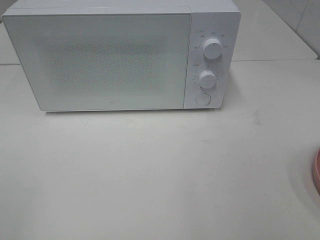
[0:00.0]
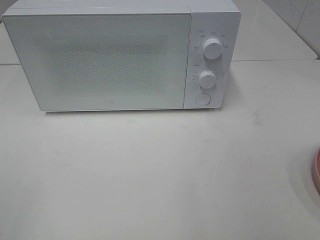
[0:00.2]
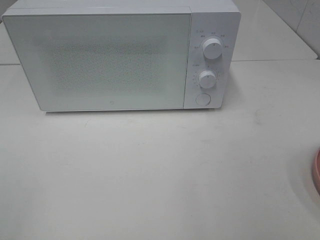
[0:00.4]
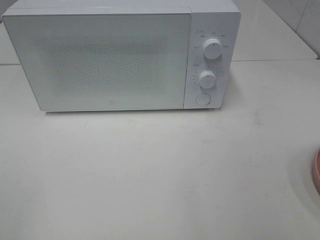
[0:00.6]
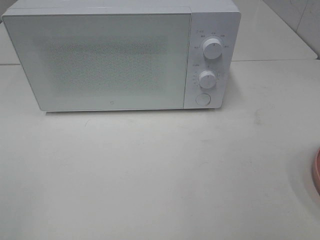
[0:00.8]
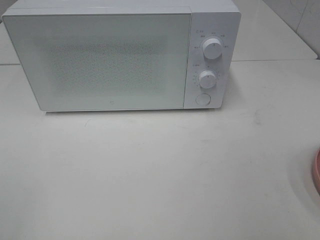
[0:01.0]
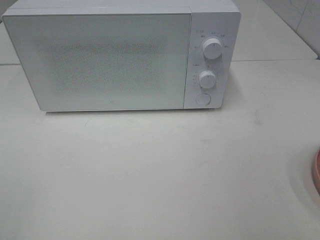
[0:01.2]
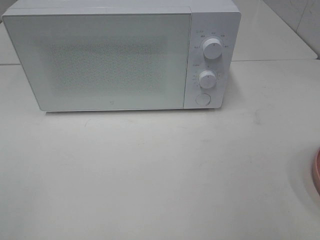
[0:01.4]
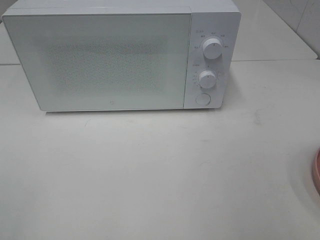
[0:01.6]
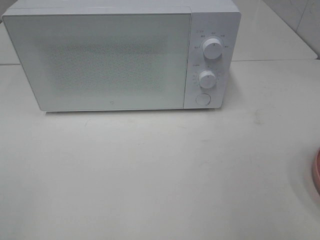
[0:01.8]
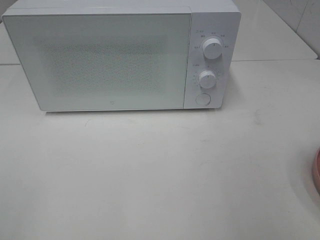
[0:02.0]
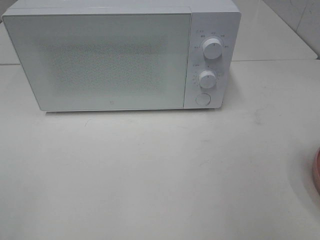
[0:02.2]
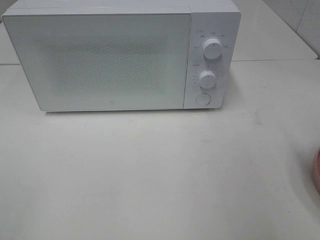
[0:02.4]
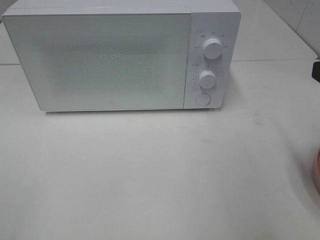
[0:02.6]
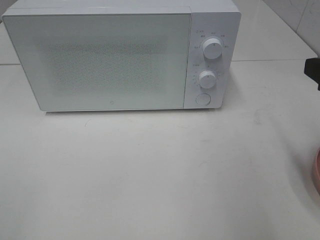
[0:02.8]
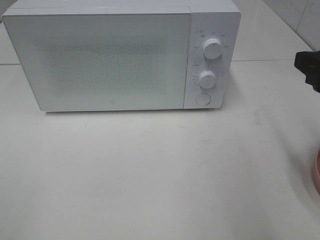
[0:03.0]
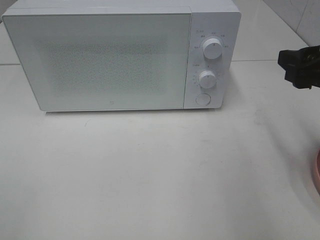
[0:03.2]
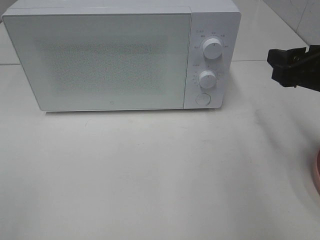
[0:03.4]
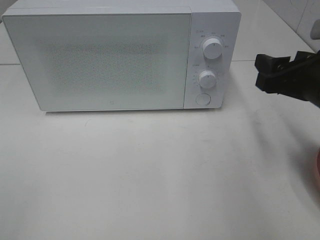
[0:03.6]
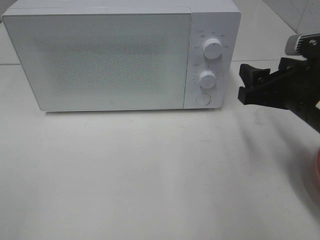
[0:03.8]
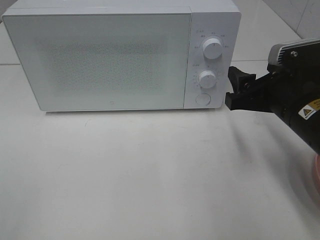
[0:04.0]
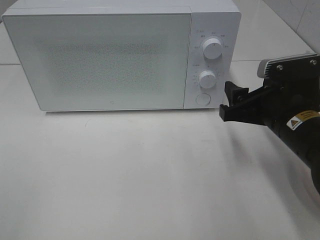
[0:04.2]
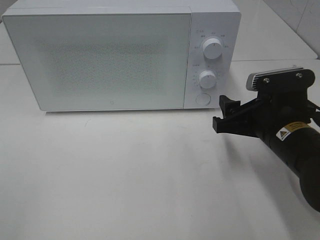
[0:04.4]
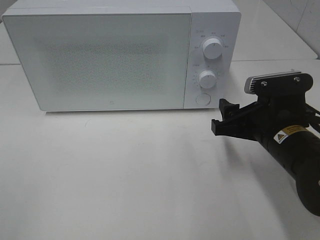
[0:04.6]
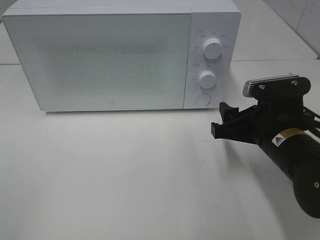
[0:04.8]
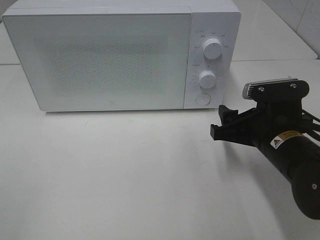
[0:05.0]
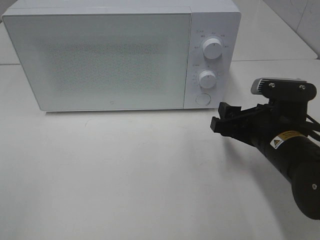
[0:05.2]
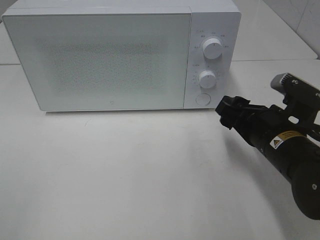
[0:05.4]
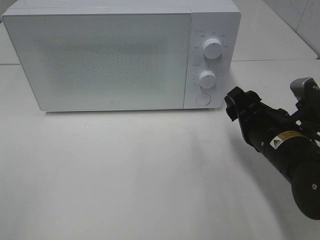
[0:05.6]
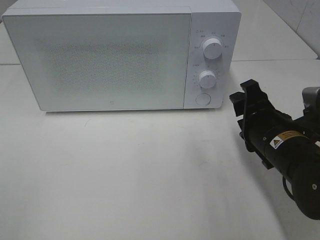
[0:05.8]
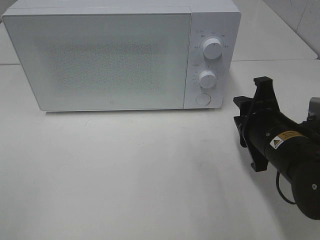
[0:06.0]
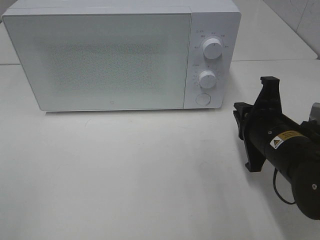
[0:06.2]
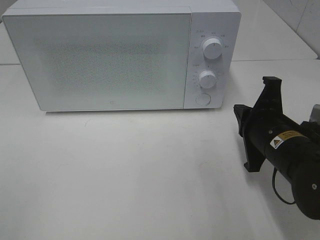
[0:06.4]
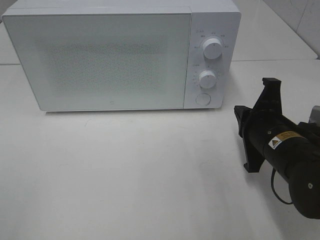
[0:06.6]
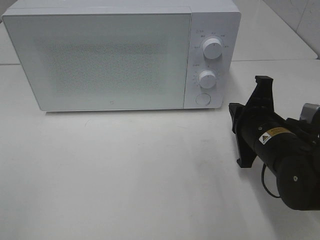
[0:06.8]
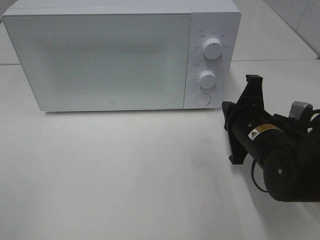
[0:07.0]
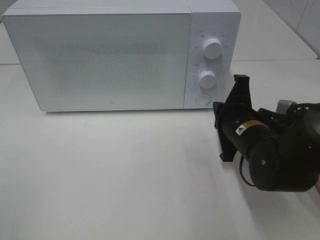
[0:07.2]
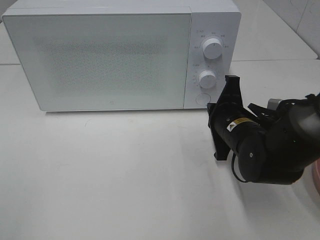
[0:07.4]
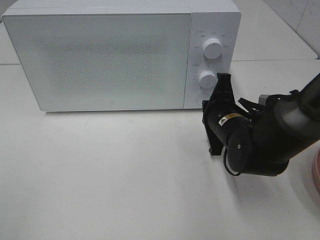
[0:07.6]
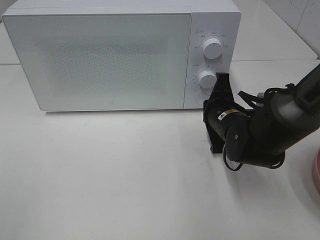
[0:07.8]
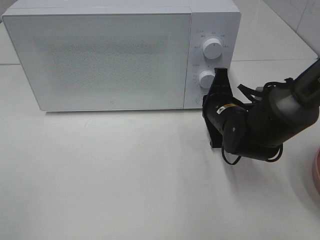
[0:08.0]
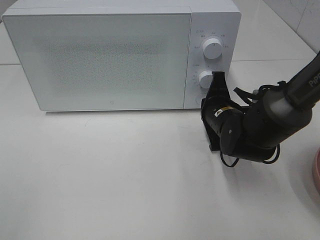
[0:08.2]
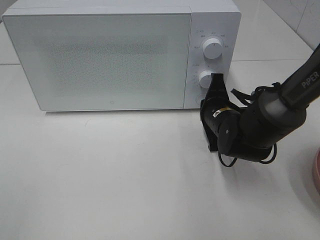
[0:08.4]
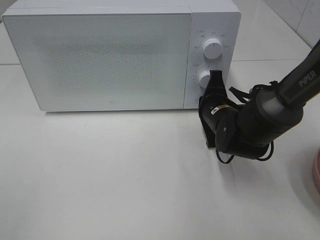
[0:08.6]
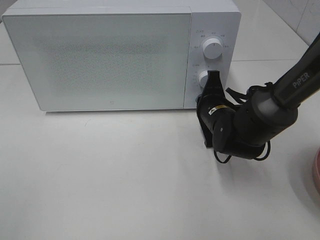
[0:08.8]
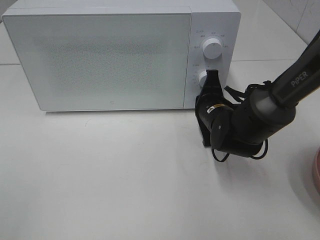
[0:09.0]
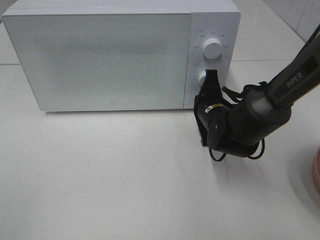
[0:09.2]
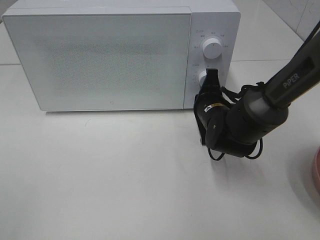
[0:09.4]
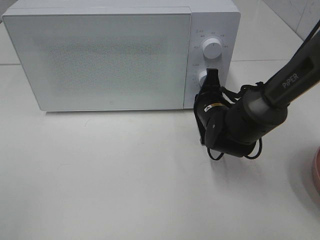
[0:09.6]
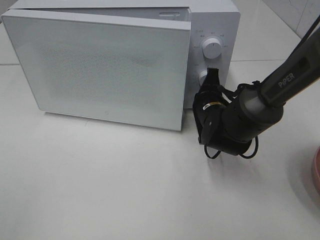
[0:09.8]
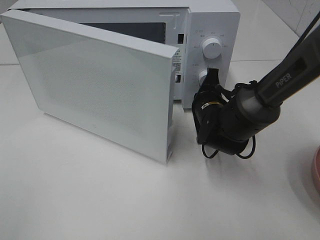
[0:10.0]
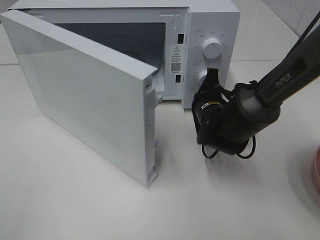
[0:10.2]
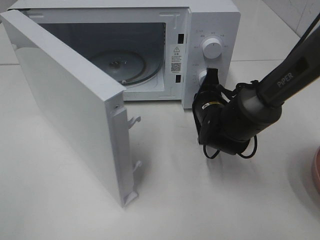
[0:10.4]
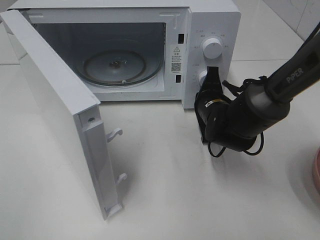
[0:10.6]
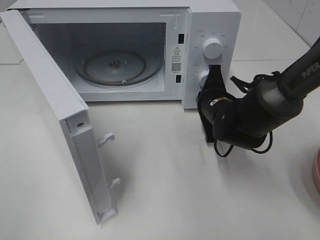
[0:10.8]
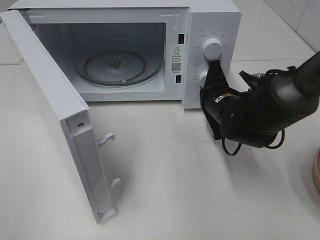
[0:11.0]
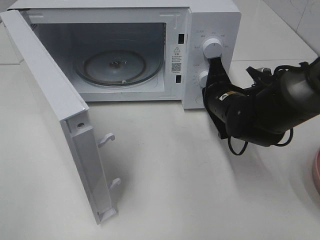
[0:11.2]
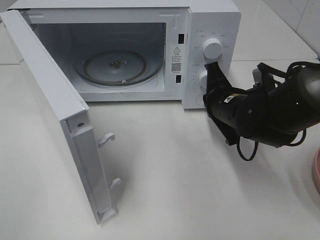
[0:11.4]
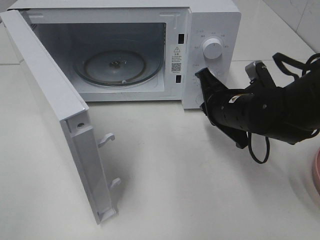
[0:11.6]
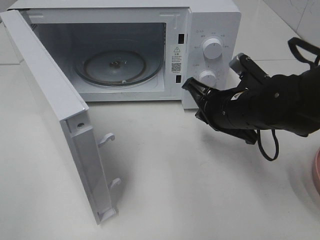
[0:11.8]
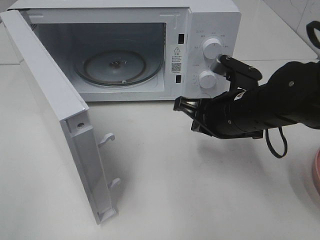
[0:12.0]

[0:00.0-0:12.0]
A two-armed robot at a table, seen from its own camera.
Task of the whole recording: Heat the burger.
Step, 0:00.0 to 0:11.4: Right hand: press the switch.
0:01.6 to 0:03.0: The right gripper moves forward, roughly 10 cm.
0:03.0 to 0:04.4: The right gripper shifts about 15 cm downward and to the left.
0:04.4 to 0:06.0: The right gripper closes.
0:06.0 to 0:07.6: The right gripper moves forward, roughly 5 cm, and closes its fingers.
0:07.6 to 0:09.0: The grippers make only small movements.
0:10.4 to 0:12.0: The right gripper heads backward and upward, covering about 10 cm.

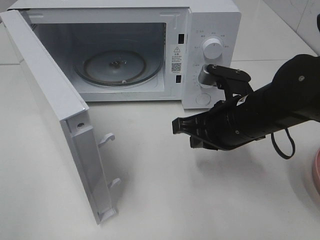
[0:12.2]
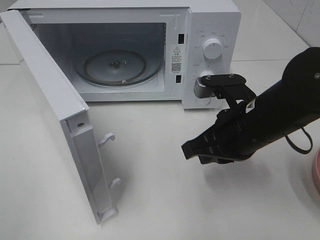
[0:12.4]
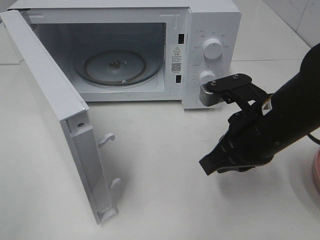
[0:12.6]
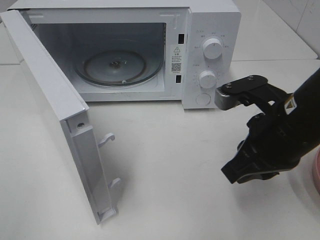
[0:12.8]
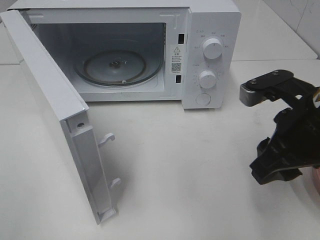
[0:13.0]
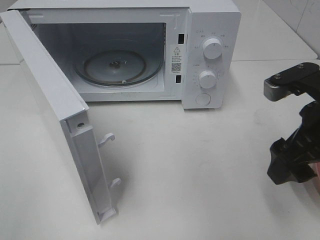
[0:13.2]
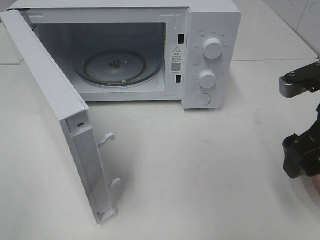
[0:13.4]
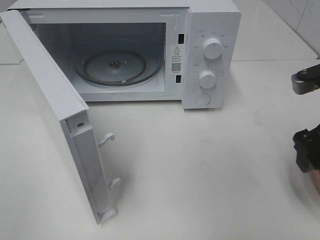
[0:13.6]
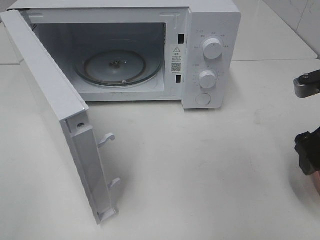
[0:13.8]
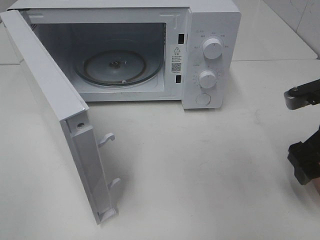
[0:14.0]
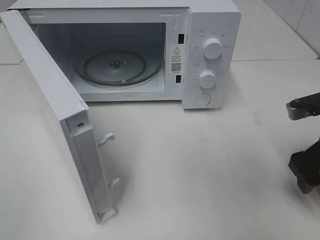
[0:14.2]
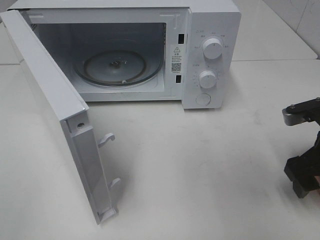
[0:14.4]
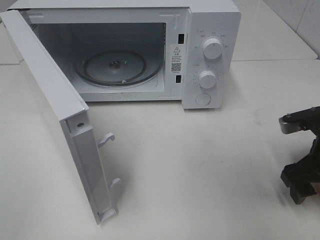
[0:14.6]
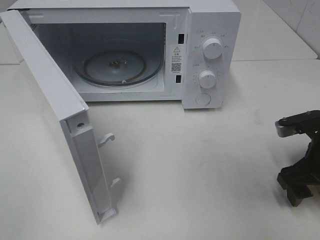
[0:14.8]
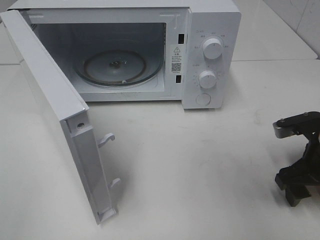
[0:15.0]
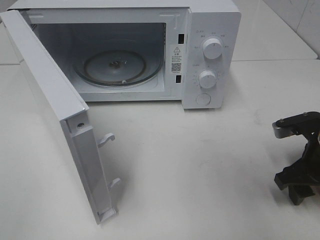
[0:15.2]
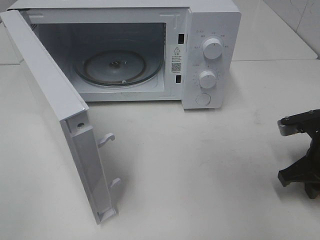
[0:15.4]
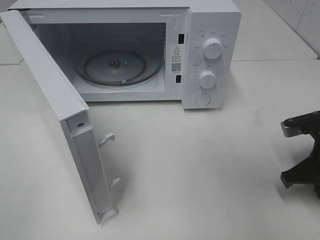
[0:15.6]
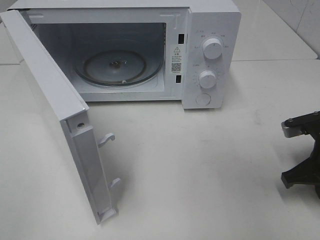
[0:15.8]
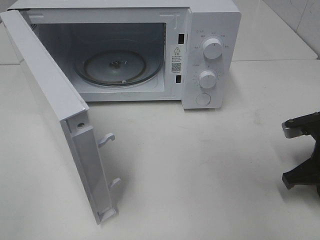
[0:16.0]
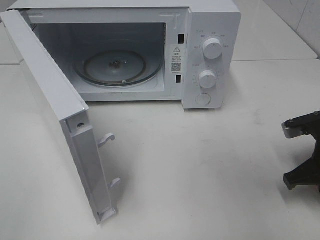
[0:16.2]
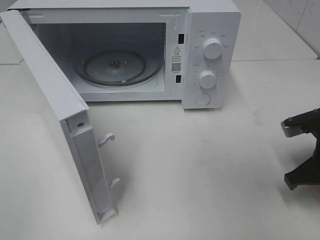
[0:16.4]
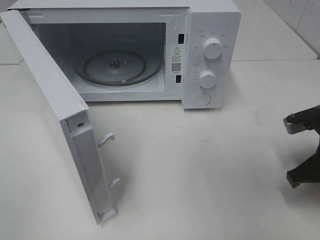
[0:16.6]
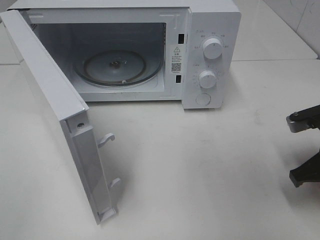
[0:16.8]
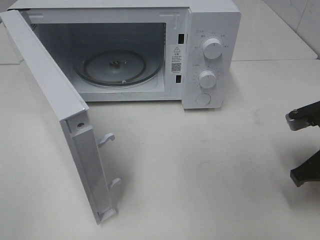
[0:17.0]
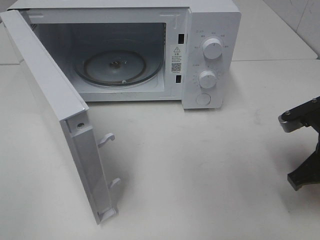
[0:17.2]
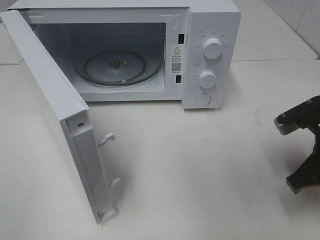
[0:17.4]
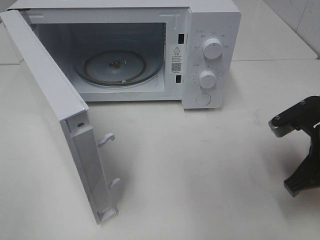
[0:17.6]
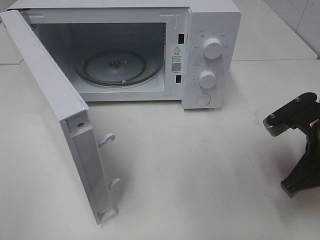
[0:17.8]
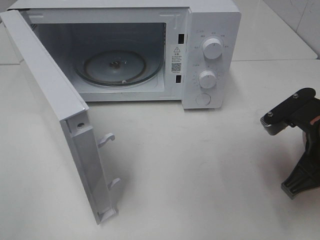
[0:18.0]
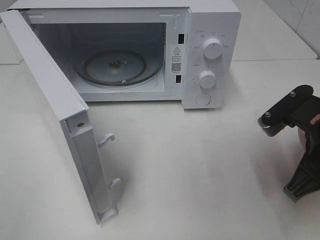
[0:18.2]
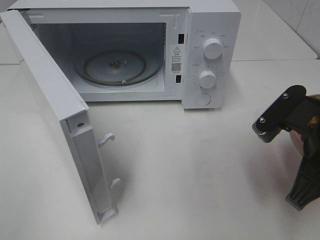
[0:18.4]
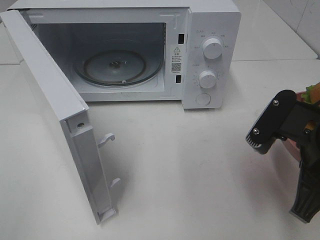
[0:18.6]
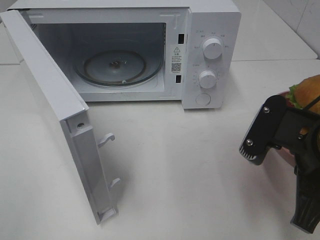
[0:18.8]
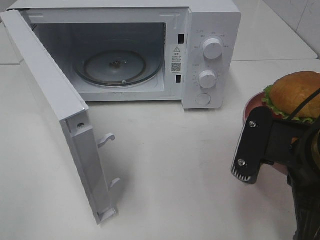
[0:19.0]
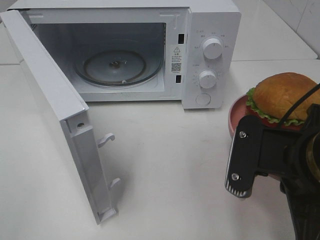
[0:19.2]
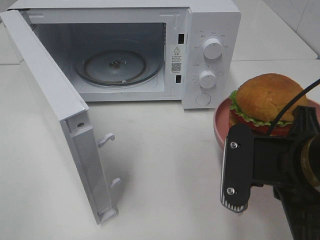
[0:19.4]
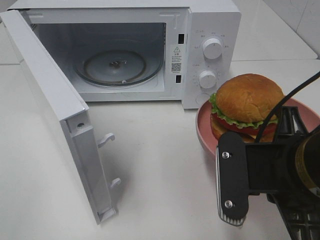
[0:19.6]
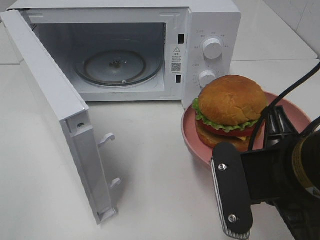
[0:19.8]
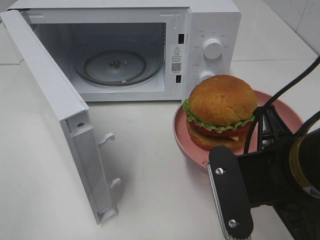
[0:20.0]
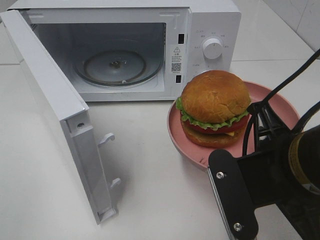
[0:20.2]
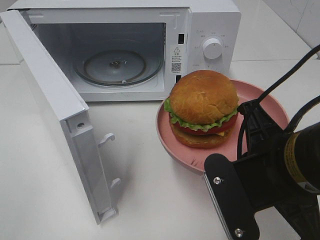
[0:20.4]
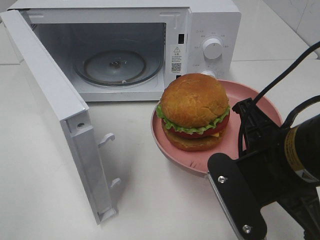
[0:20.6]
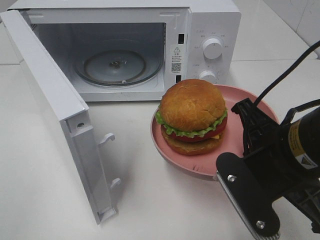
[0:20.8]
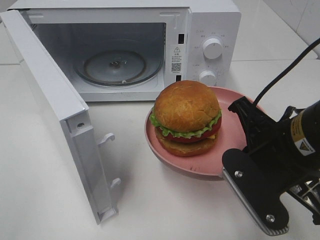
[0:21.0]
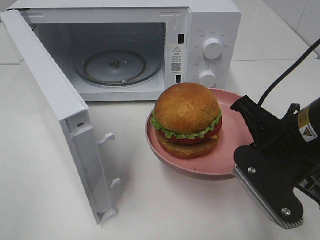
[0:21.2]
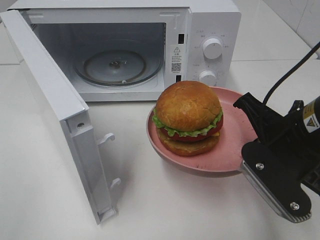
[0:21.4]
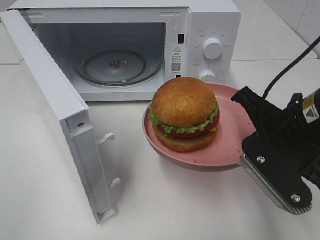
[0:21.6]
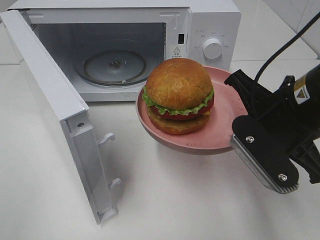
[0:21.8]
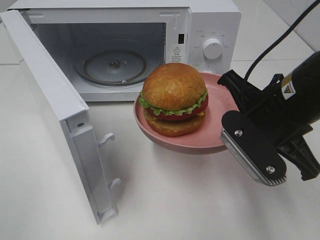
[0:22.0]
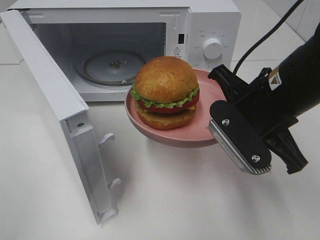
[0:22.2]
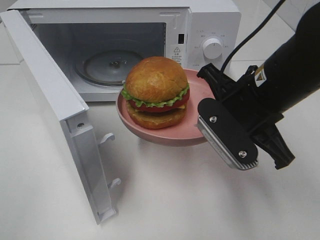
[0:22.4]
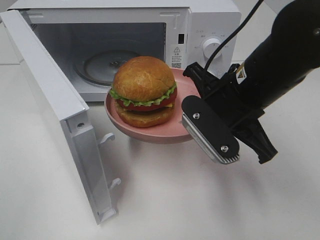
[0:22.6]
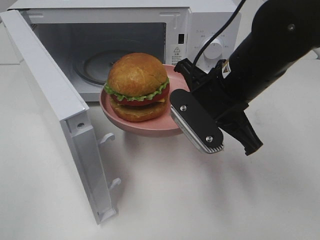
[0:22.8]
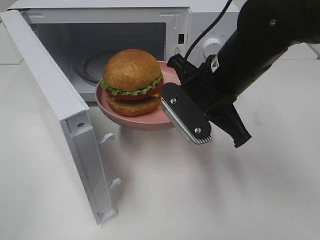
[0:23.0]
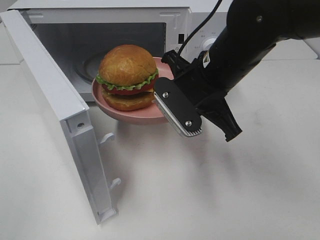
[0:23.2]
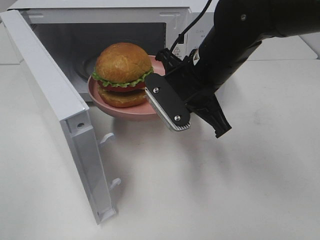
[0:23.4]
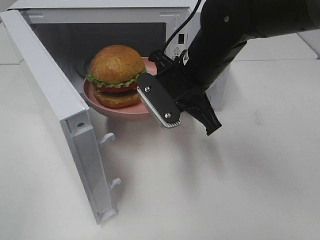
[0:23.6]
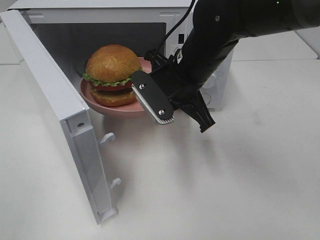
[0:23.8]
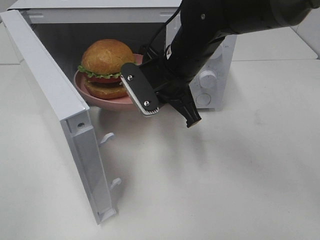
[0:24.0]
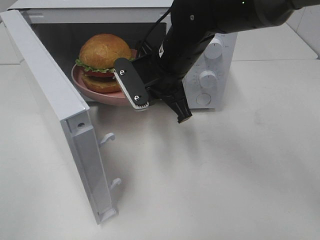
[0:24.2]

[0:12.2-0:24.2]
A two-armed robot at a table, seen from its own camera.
Task of the whole recording: Heat the burger.
Step, 0:12.2 to 0:16.2: Right hand: grab the plate with the hamburger.
0:12.2 to 0:13.8: The right gripper moves to the right, some 10 cm, and opens.
0:13.8 to 0:15.2: The right gripper travels downward by some 10 cm.
0:15.2 to 0:16.6: The right gripper closes up.
0:16.6 to 0:18.2: The right gripper heads to the left and upward, covering approximately 10 cm.
0:18.2 to 0:19.8: The right gripper shifts about 10 cm to the left and backward.
0:19.8 to 0:21.2: The right gripper goes about 5 cm forward.
0:21.2 to 0:22.6: The right gripper travels forward and to the left by about 10 cm.
0:22.6 to 0:24.2: The right gripper heads forward and to the left, covering approximately 15 cm.
